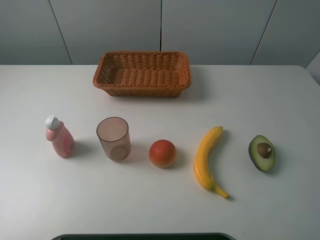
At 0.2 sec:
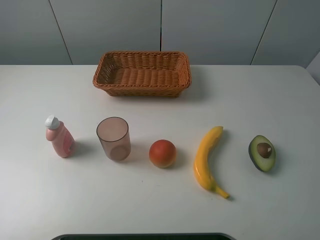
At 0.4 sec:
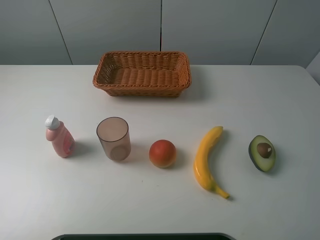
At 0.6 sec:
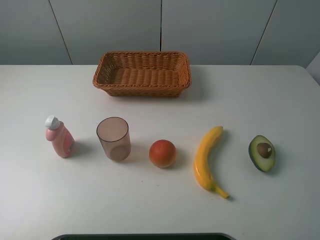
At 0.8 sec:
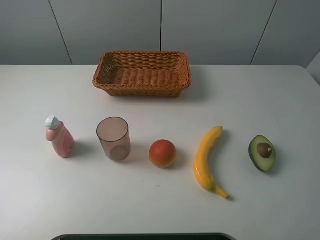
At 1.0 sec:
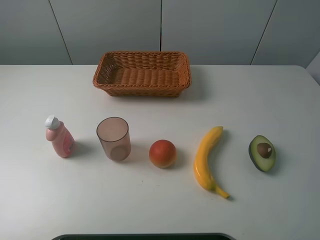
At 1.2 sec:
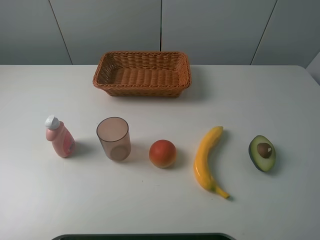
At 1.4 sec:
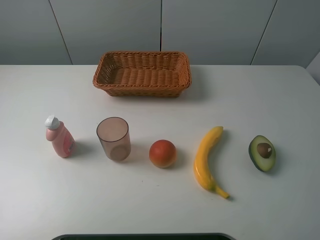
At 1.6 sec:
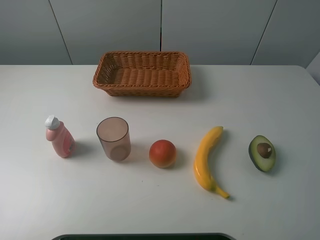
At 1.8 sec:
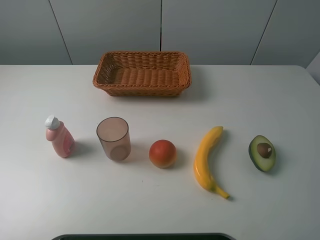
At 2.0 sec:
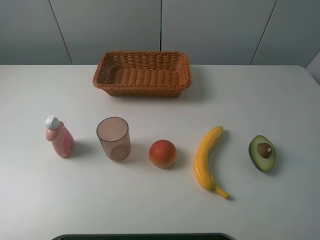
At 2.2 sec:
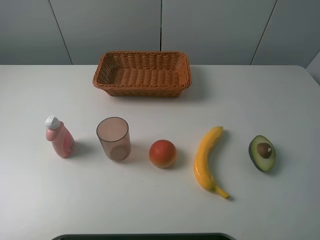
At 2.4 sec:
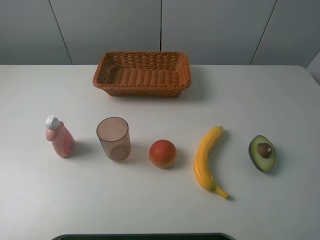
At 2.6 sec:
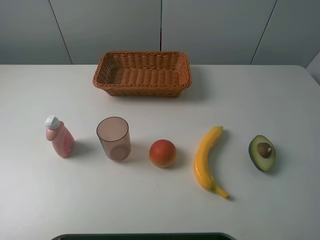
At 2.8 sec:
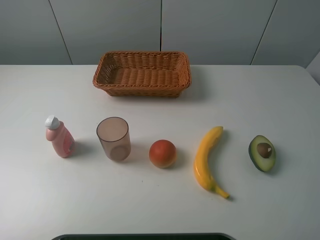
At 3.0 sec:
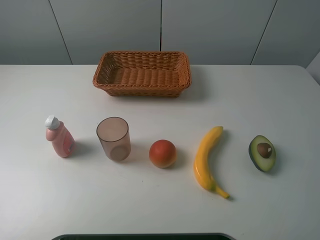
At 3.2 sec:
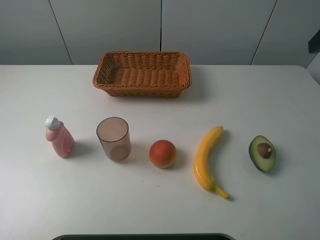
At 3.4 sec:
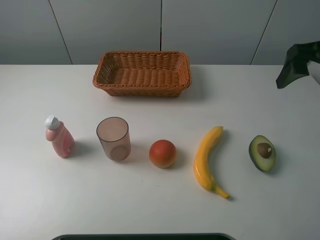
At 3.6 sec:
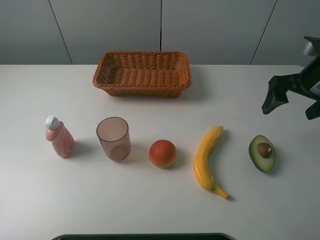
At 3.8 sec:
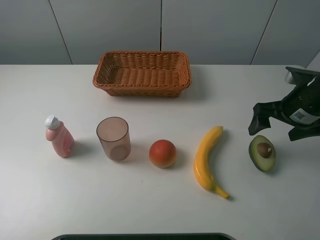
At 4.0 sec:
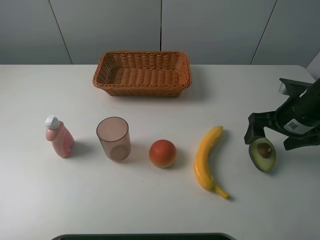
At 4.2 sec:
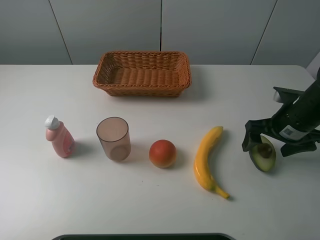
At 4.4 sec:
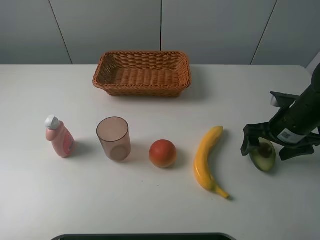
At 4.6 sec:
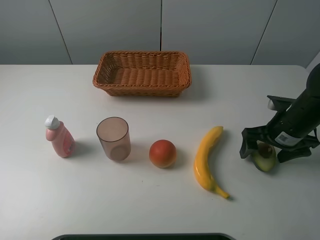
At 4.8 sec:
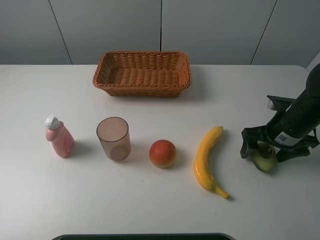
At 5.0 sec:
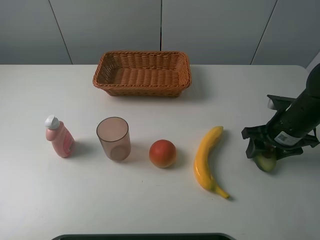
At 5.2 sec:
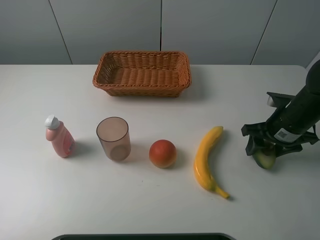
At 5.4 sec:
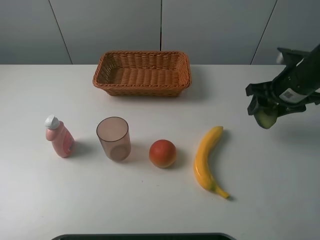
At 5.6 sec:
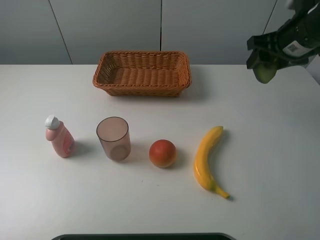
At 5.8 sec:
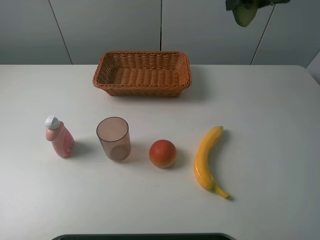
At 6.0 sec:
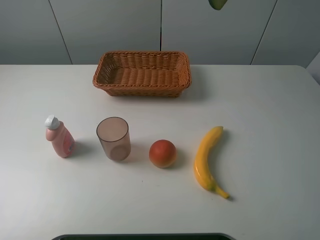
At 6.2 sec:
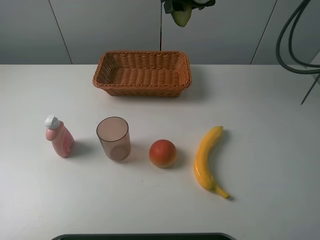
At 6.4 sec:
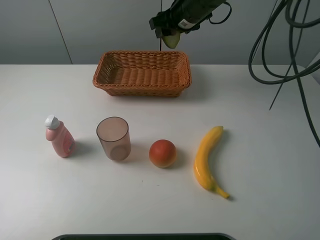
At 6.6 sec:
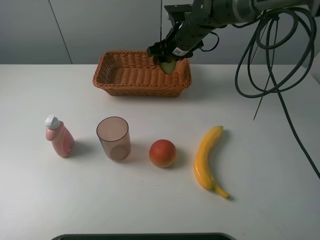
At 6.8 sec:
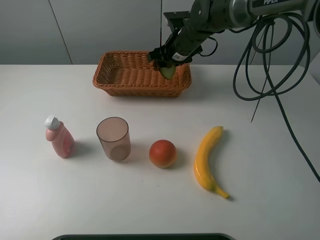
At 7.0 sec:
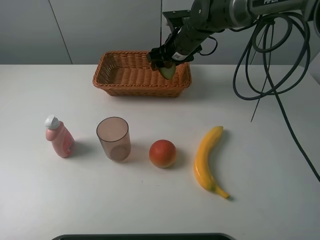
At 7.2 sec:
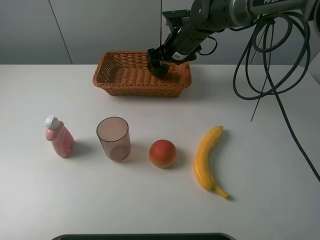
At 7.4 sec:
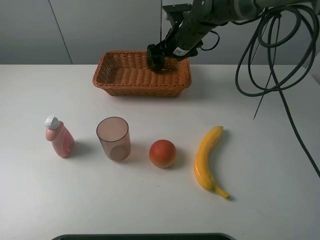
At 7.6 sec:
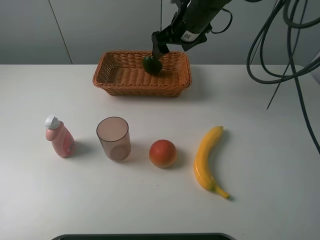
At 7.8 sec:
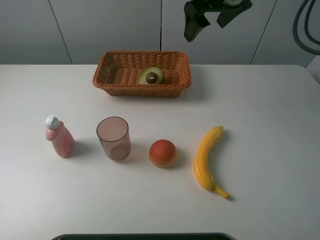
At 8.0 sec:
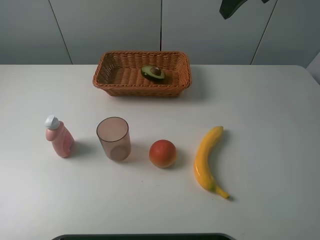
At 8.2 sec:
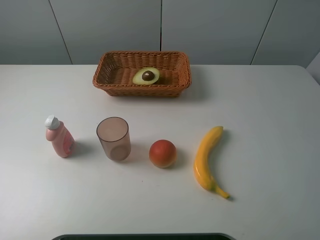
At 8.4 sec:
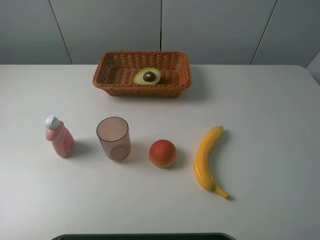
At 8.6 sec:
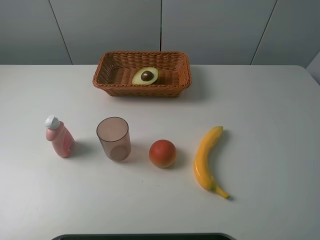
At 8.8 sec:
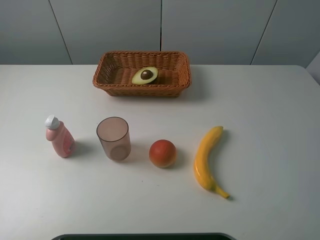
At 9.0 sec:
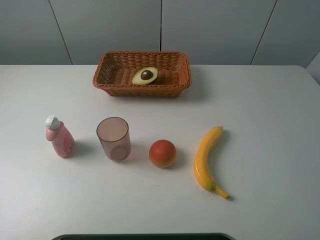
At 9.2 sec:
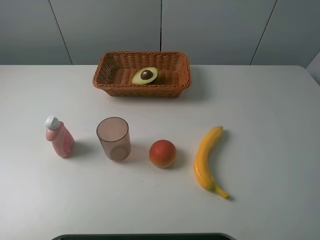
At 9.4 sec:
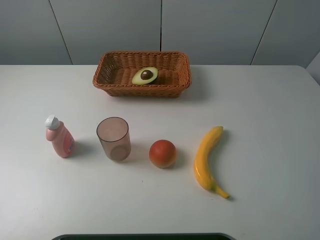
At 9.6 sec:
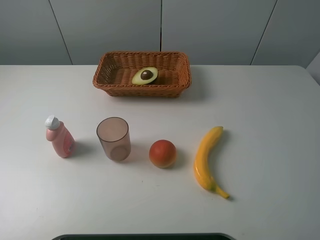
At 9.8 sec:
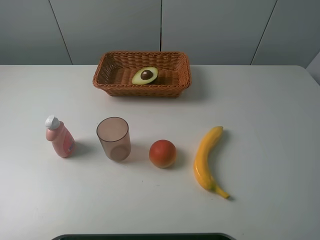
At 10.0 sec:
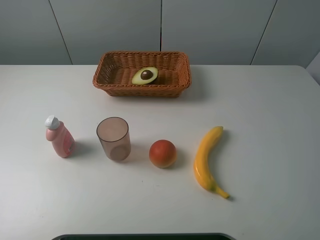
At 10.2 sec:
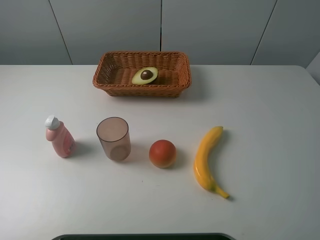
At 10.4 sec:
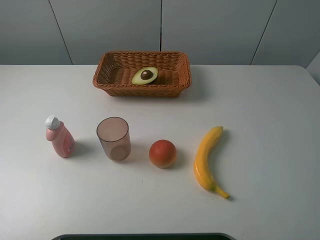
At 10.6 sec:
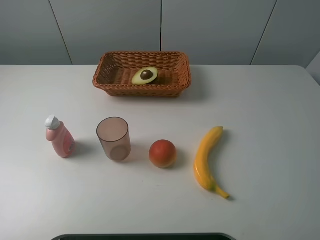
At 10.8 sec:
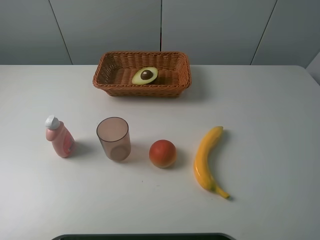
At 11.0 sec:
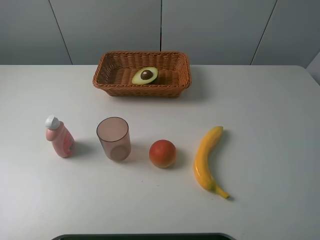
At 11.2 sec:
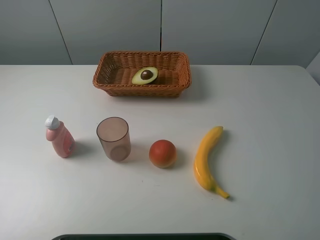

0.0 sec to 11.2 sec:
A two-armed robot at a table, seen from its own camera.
Task of the whole recording: randomly pick up an item from the table and put it in the basket.
Step, 0.0 sec to 5.0 sec: Grasp the avocado with the right gripper.
Step, 5.2 sec to 7.6 sec: Place the avocado into the basket with the right gripper.
0.0 sec to 1.6 sec: The two grippers keep their place.
3.2 sec to 4.8 sec: The right gripper shifts roughly 25 cm downward.
4.8 sec to 6.4 sec: The right gripper goes roughly 30 cm to the left, forward and upward, and closes.
6.4 sec to 8.0 sec: The right gripper moves upward, backward and to the right, roughly 20 cm, and opens up.
8.0 sec to 9.6 sec: The right gripper moves backward, approximately 35 cm.
